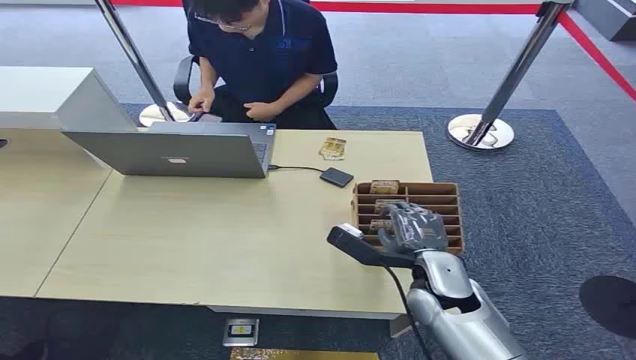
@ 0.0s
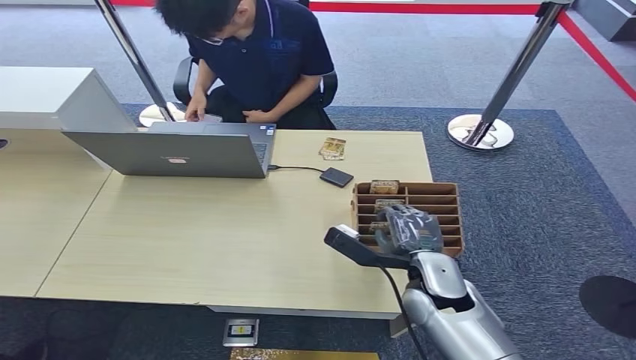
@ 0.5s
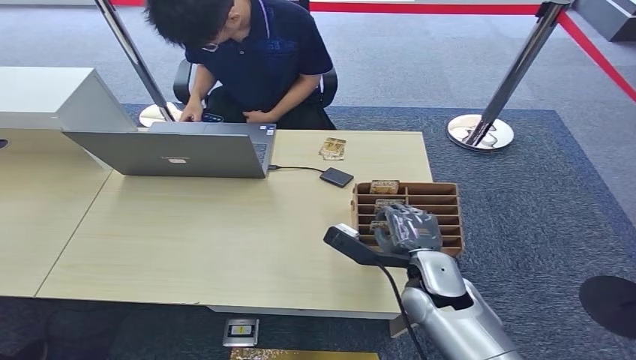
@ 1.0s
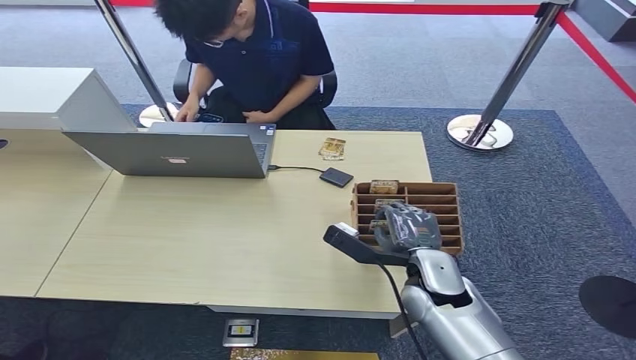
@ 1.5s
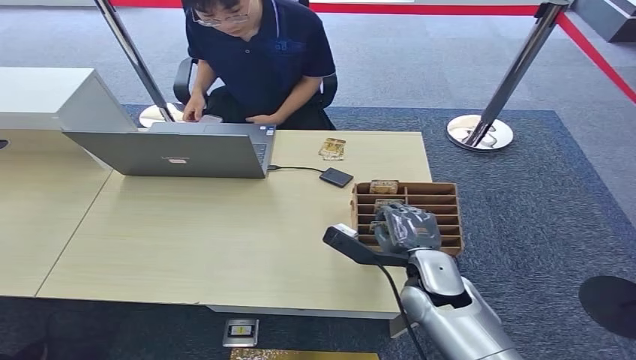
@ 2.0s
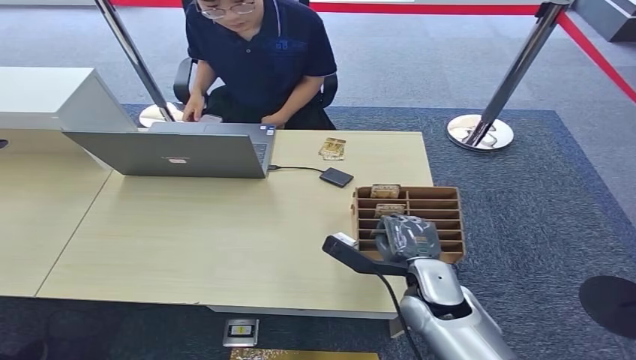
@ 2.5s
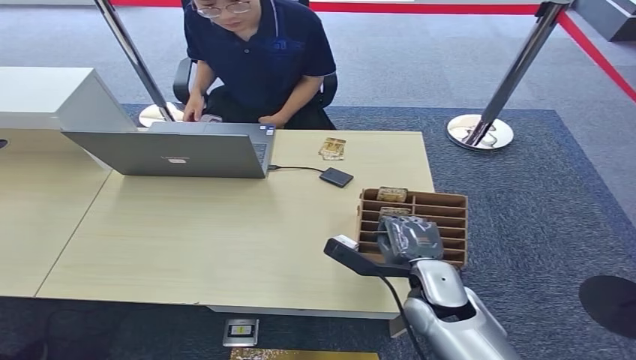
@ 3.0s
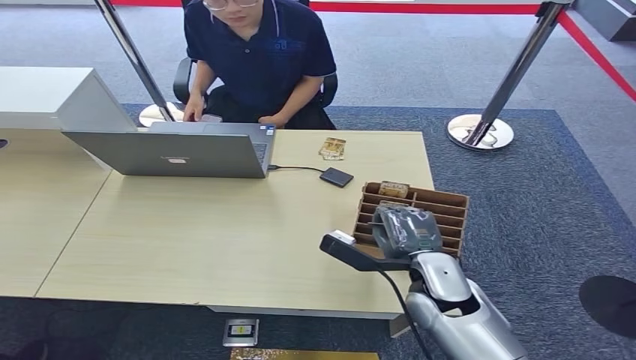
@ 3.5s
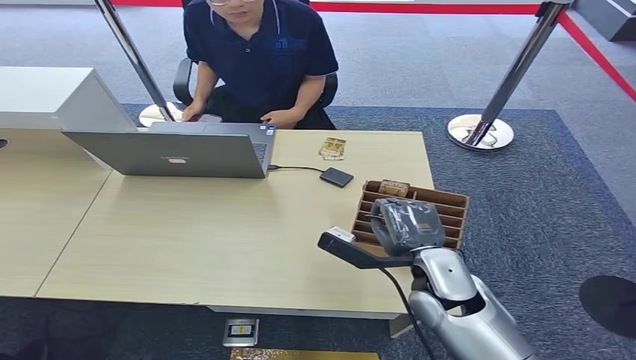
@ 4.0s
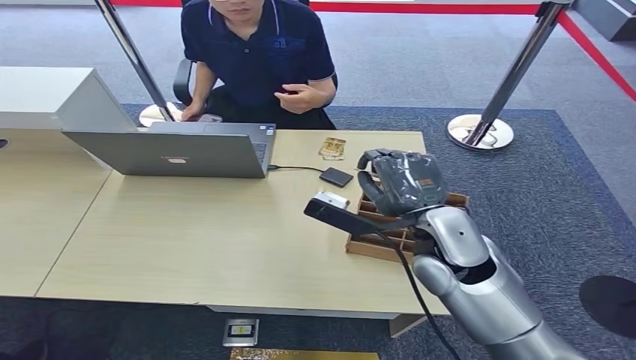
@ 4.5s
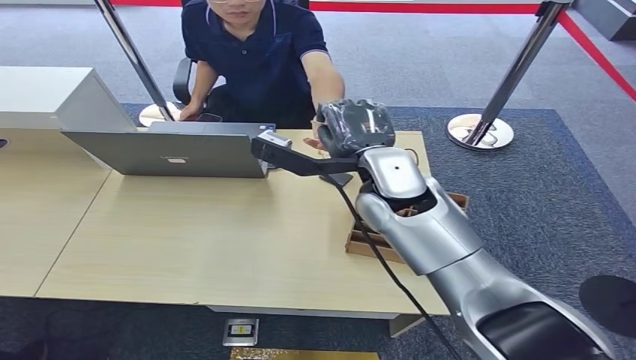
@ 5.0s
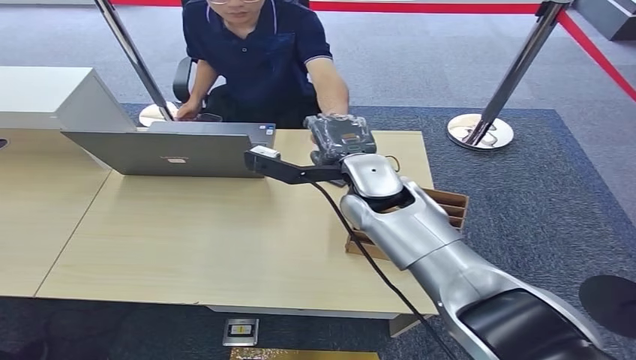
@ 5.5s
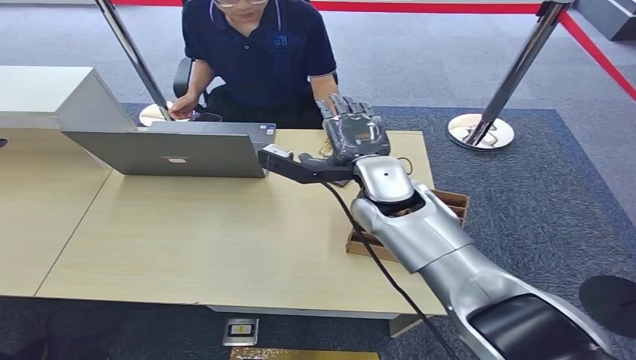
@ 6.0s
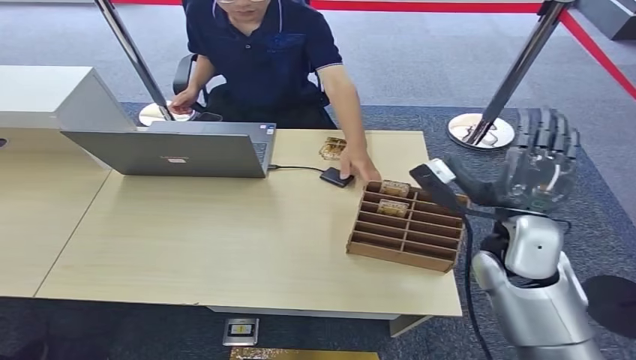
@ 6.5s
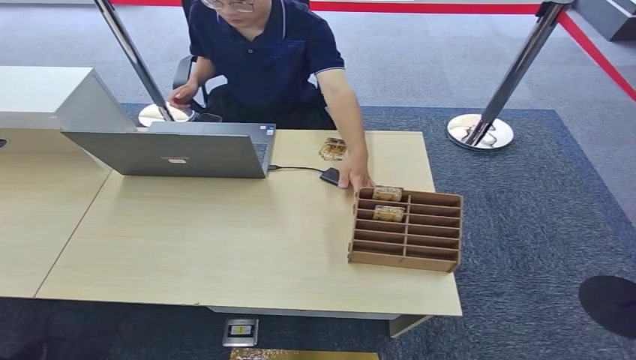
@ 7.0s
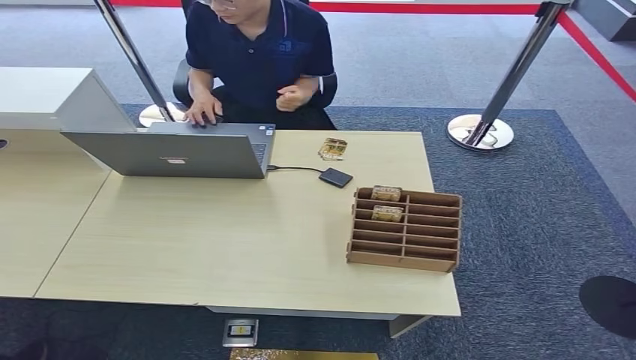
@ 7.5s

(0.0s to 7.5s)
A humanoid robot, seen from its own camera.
Step, 0.0s - 4.5s: Pick up the room card from the card holder.
Step, 5.5s - 7.0s: Hand the room card to the target.
2.0s - 4.0s: The hands make only small movements.
4.0s - 5.5s: The right hand heads forward, upward and to the left, covering about 20 cm.
5.5s - 7.5s: The right hand heads backward, downward and to the right, covering about 60 cm.
